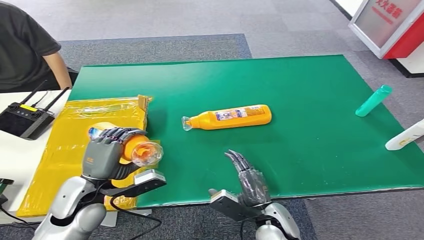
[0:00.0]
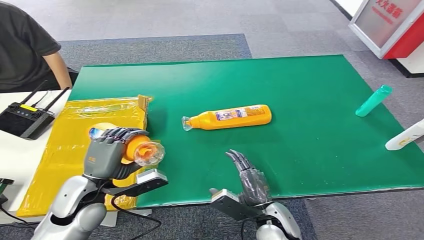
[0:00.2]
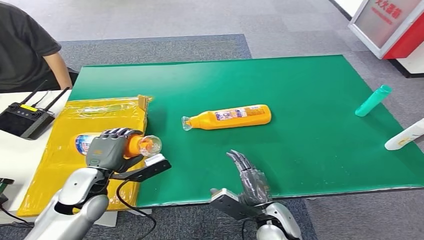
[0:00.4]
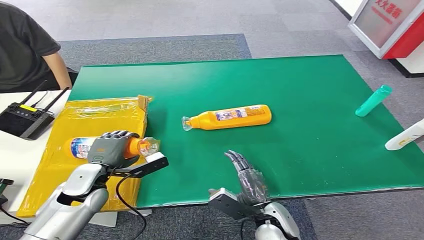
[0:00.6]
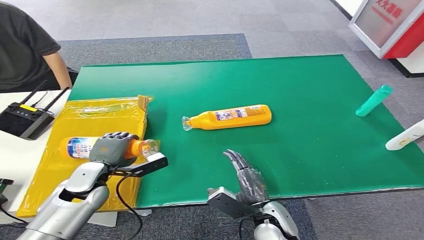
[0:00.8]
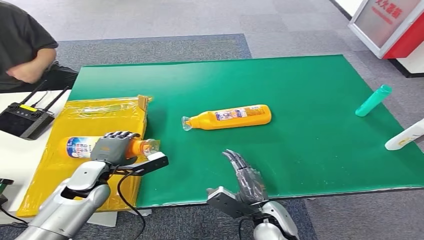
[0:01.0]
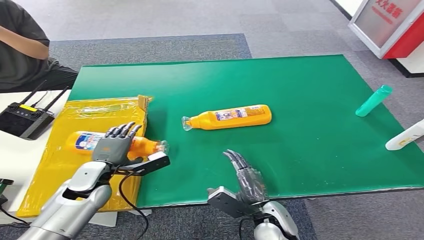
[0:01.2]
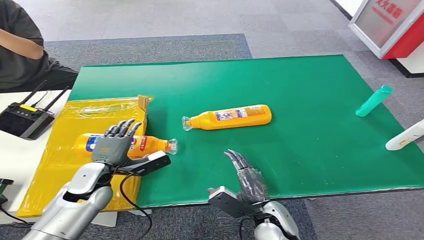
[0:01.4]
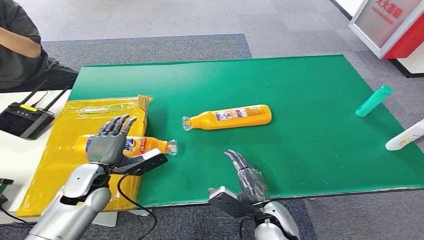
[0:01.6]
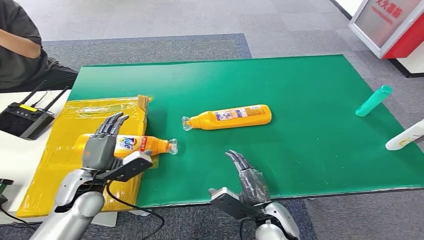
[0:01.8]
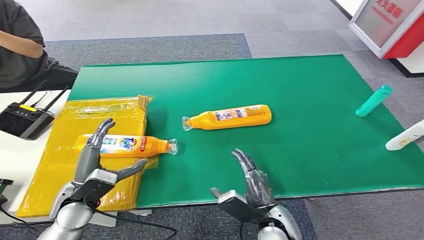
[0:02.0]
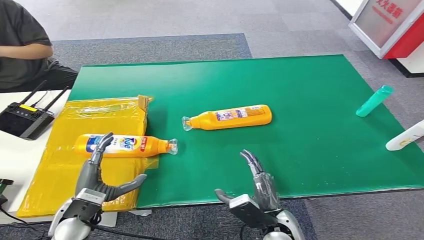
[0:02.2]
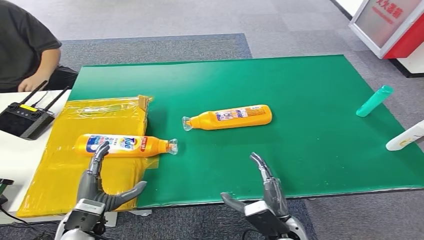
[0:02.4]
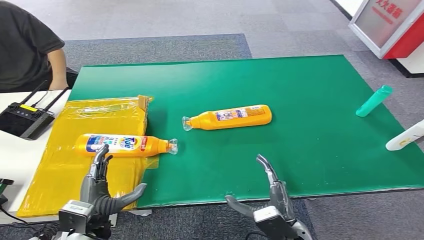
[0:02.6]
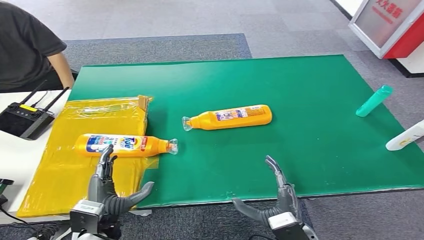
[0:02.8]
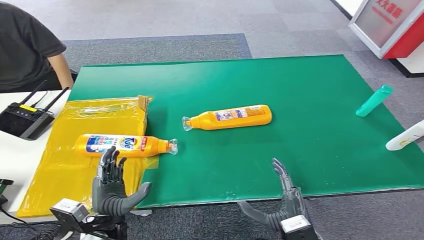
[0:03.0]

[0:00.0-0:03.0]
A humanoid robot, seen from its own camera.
Step, 0:00.0 to 0:03.0: Turn the bottle to the front side.
0:00.0 to 0:01.6: The left hand shifts by some 5 cm.
0:01.6 to 0:03.0: The right hand heads backward, covering roughly 5 cm. Meanwhile the left hand goes approximately 15 cm backward and to the right.
